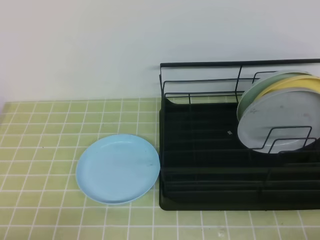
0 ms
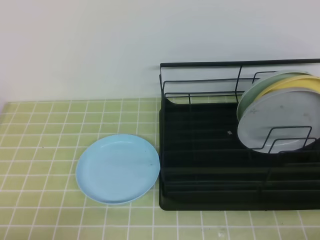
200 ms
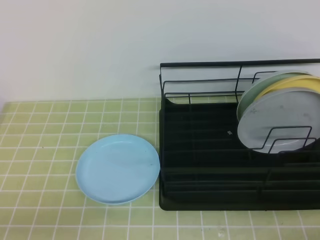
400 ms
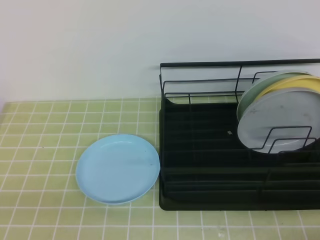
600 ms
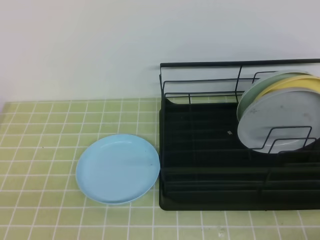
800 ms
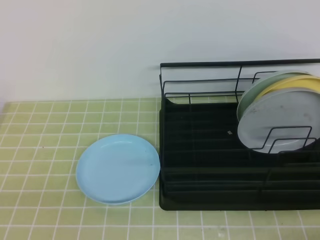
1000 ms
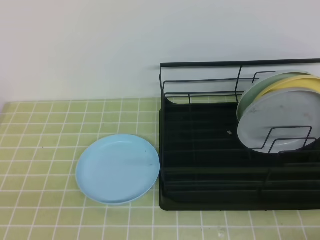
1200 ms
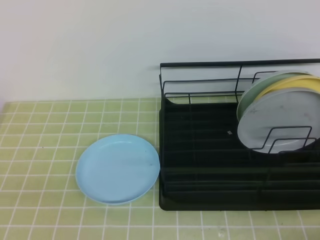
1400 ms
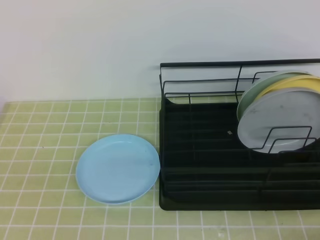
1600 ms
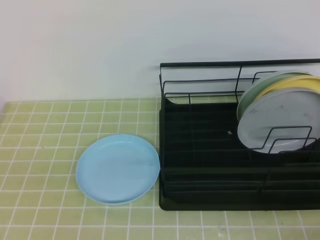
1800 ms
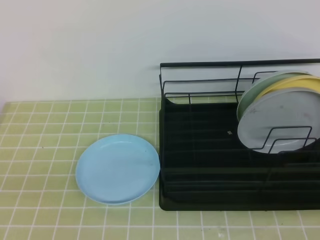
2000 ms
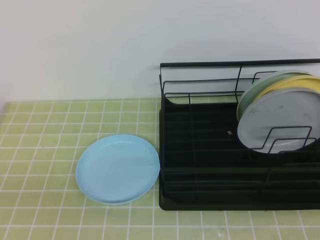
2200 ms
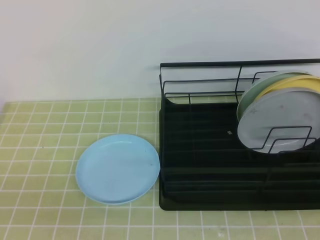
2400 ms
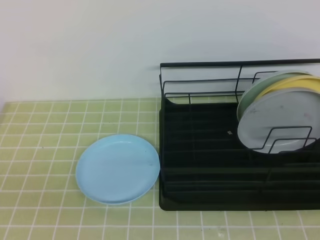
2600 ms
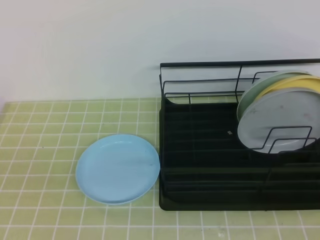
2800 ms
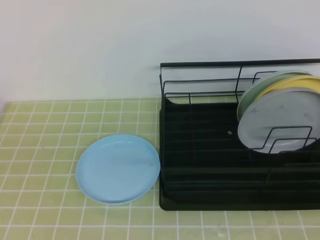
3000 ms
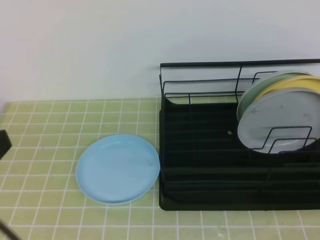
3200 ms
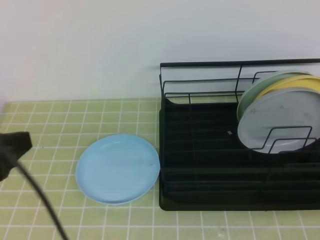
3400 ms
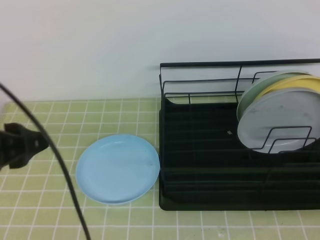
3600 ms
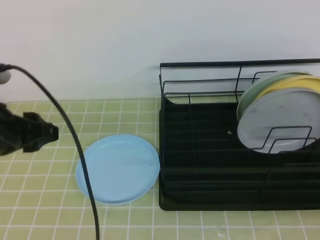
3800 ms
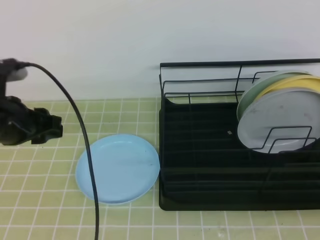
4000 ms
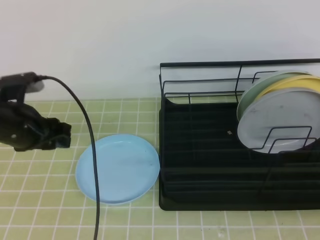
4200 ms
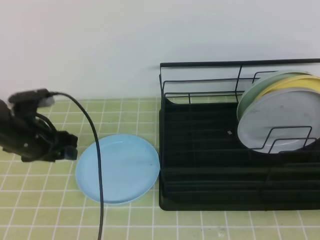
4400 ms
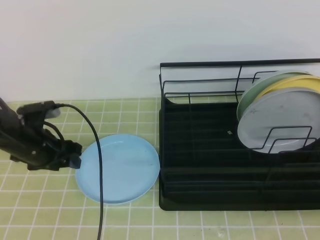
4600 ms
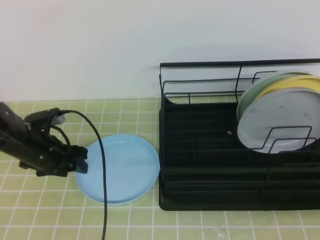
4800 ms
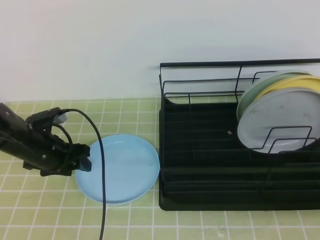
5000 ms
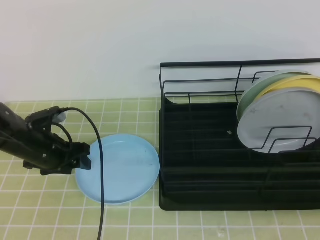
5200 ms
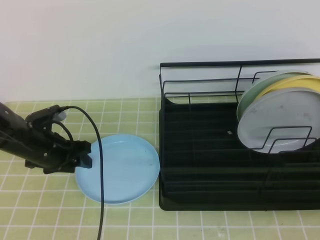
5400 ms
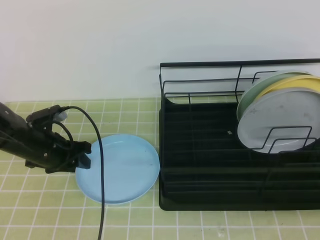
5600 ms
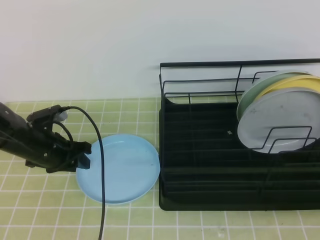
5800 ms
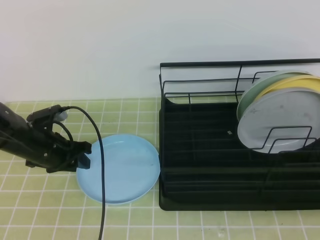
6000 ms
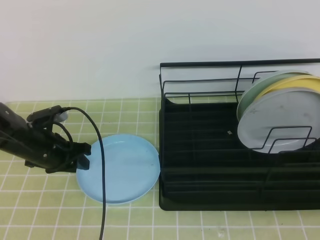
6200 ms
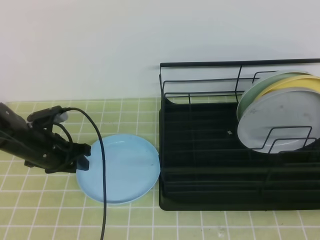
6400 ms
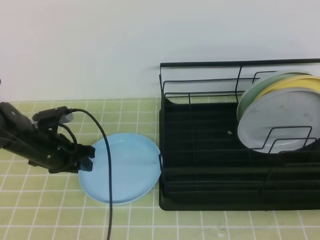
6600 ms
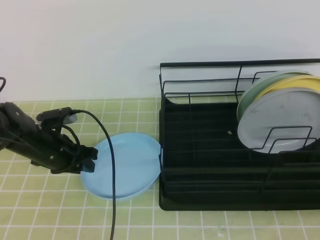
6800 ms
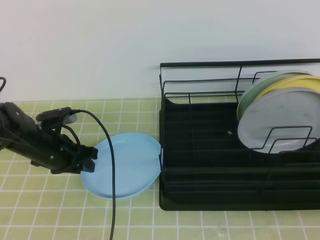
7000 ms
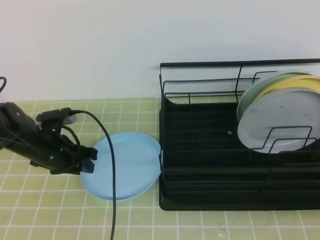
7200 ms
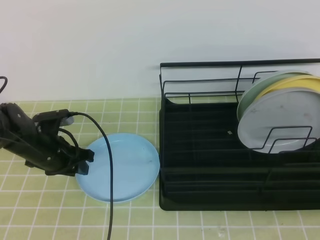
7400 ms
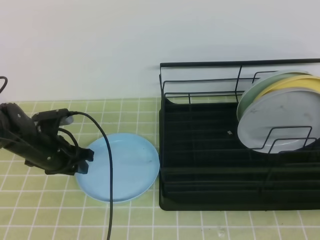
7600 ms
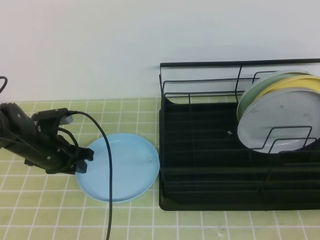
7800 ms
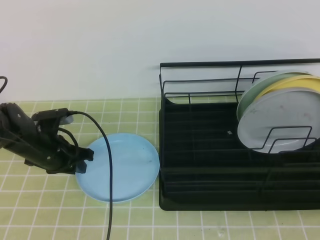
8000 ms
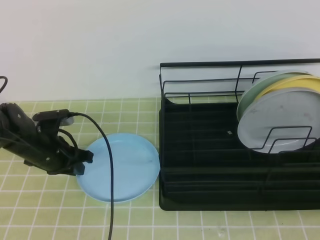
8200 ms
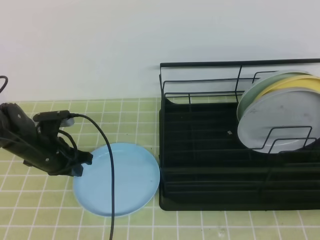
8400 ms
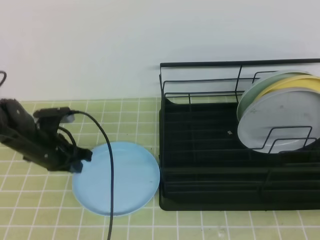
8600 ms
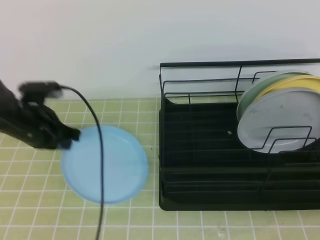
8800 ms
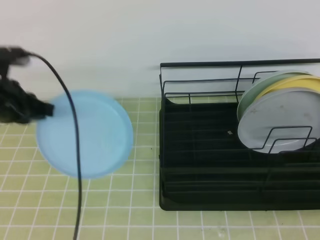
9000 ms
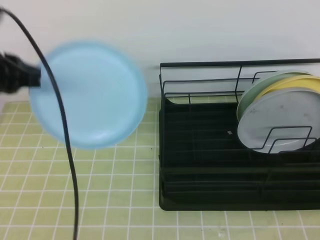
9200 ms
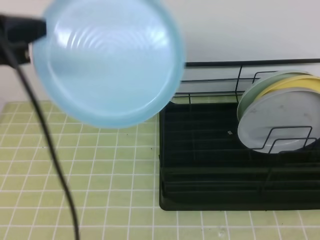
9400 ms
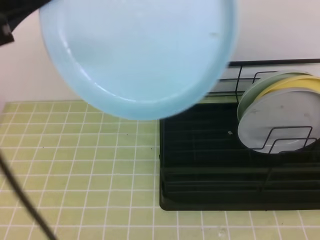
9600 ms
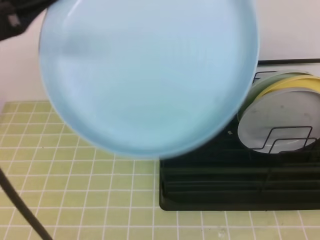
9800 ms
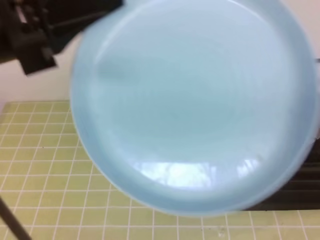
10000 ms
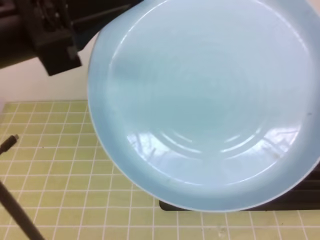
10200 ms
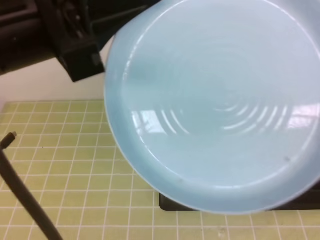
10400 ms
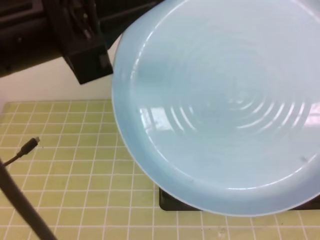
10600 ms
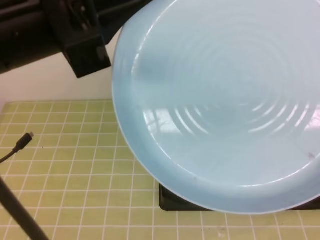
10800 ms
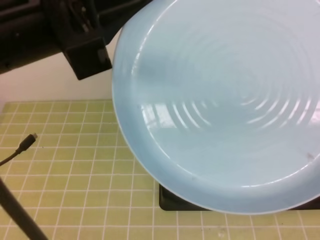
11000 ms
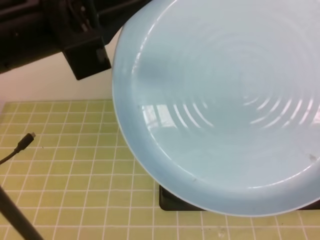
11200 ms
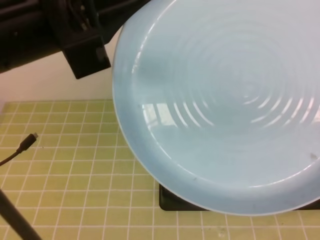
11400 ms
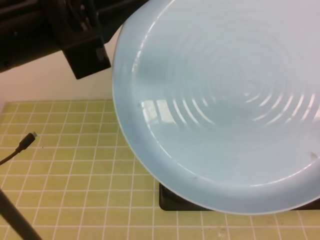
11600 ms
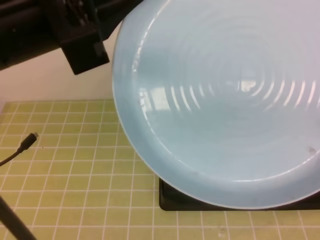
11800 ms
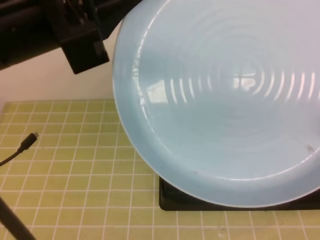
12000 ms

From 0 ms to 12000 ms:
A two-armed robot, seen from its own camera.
Step, from 0 ms to 7000 ms: Left grab the blue plate.
Step, from 7200 ms to 10600 ms: Right receive the plate.
From 3000 ms to 4400 ms: The left gripper travels forward and downward by roughly 30 cm, and opens up.
From 4400 ms to 6000 ms: The left gripper travels downward by about 5 cm, and closes up.
From 6000 ms to 7600 ms: The grippers move only a little.
From 7600 ms to 9000 ms: The left gripper goes approximately 15 cm upward, and closes up.
From 9000 ms to 10400 ms: The left gripper goes approximately 25 cm upward, backward and to the right. The right gripper is displaced upward by approximately 15 cm, and opens.
From 10400 ms to 12000 ms: The right gripper moves some 5 cm.

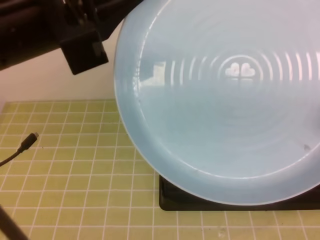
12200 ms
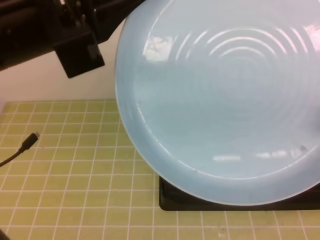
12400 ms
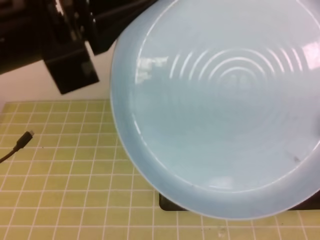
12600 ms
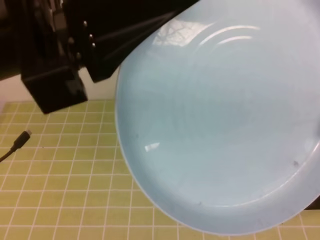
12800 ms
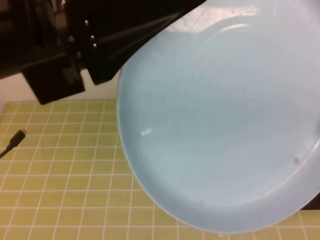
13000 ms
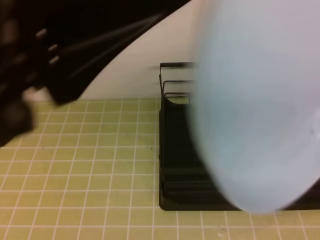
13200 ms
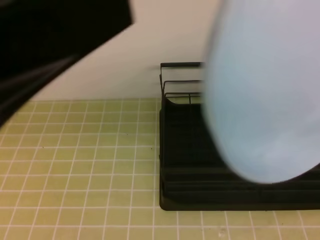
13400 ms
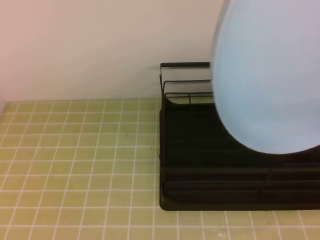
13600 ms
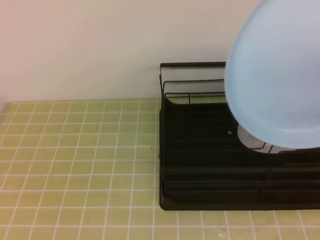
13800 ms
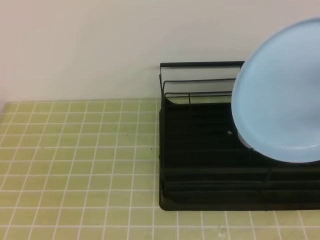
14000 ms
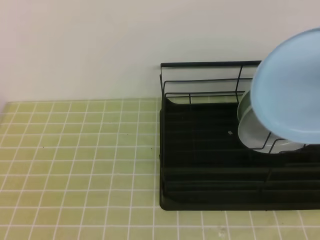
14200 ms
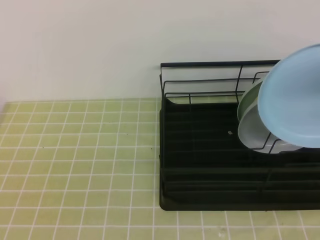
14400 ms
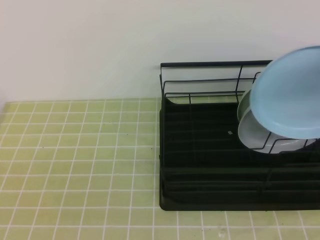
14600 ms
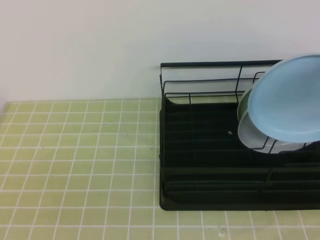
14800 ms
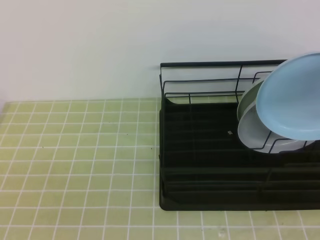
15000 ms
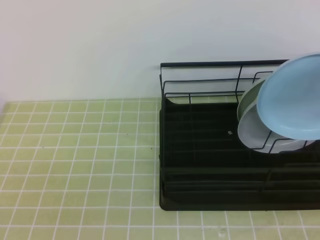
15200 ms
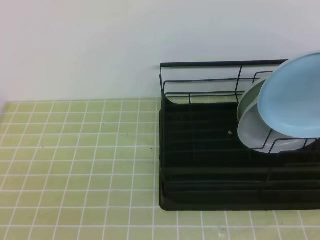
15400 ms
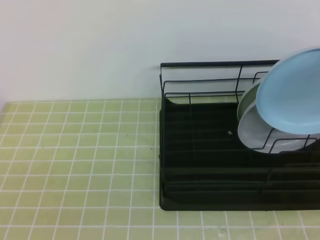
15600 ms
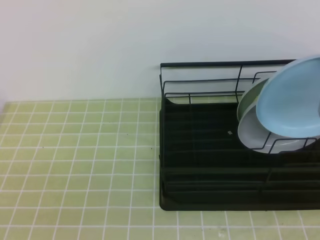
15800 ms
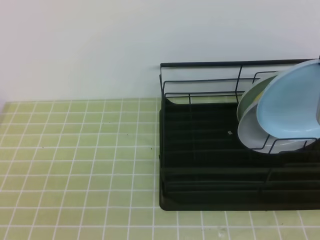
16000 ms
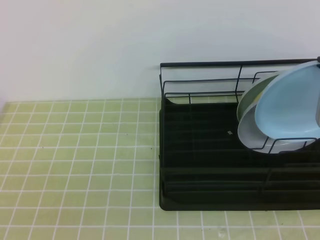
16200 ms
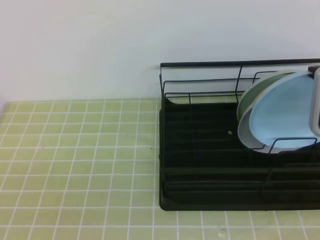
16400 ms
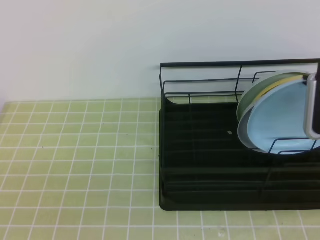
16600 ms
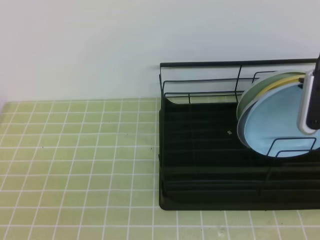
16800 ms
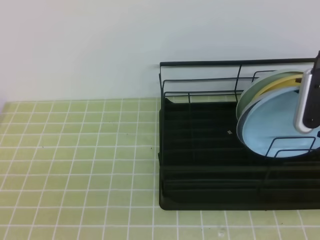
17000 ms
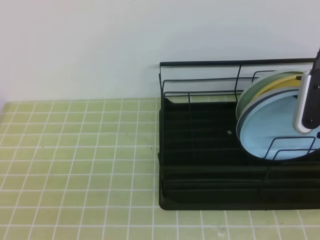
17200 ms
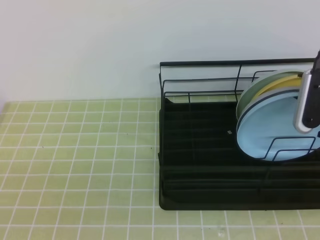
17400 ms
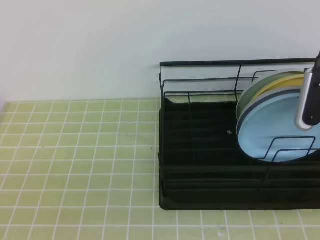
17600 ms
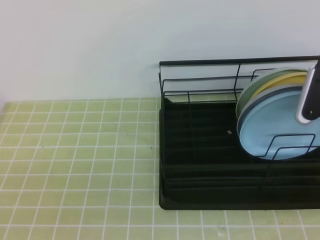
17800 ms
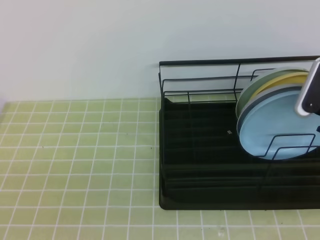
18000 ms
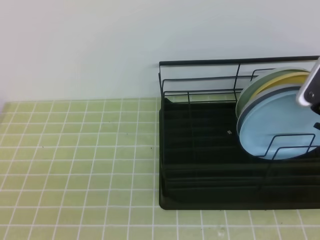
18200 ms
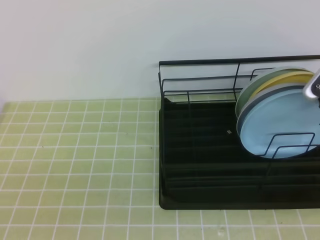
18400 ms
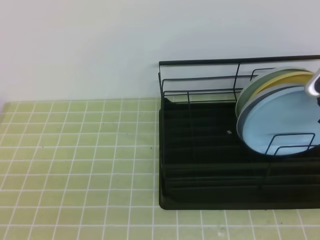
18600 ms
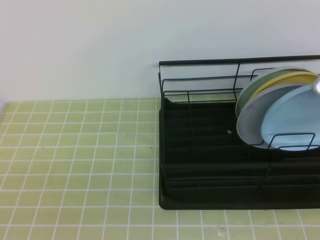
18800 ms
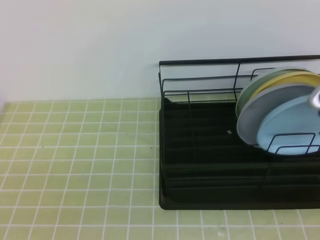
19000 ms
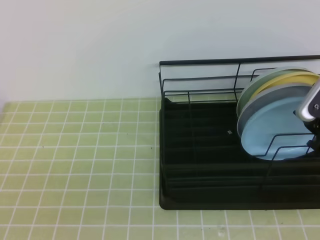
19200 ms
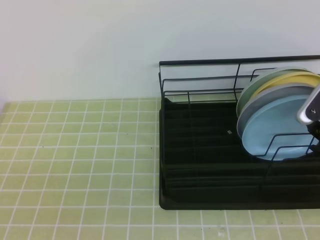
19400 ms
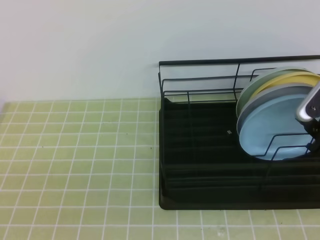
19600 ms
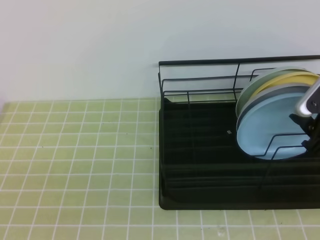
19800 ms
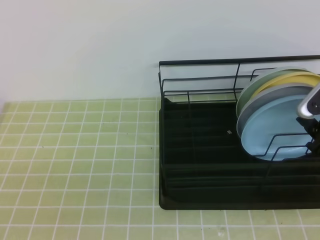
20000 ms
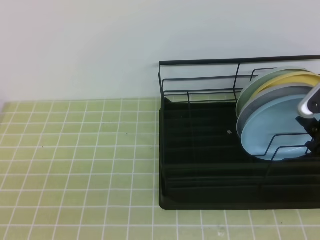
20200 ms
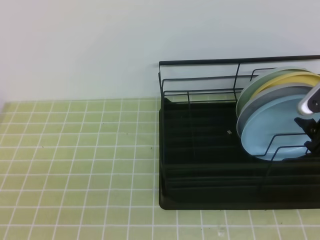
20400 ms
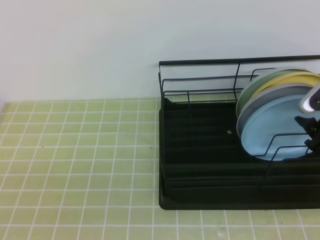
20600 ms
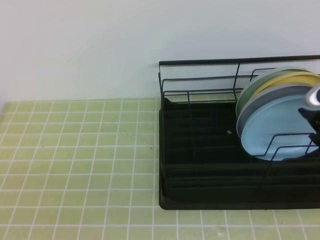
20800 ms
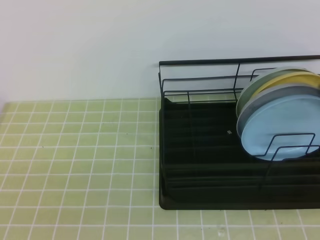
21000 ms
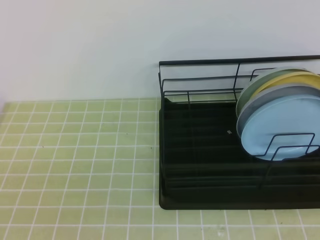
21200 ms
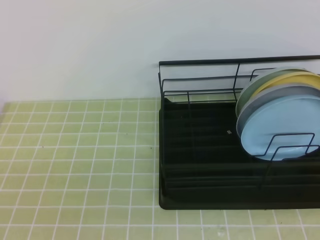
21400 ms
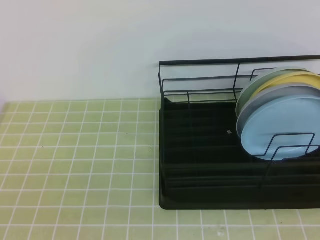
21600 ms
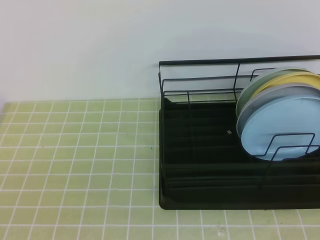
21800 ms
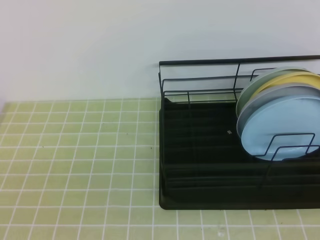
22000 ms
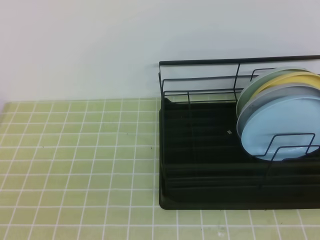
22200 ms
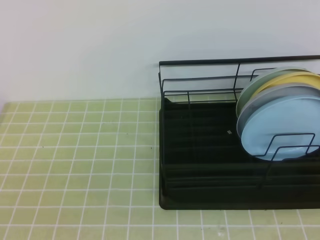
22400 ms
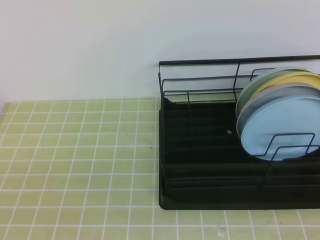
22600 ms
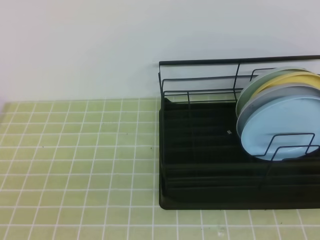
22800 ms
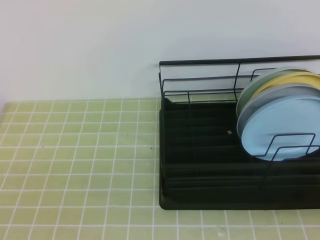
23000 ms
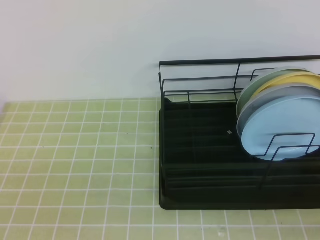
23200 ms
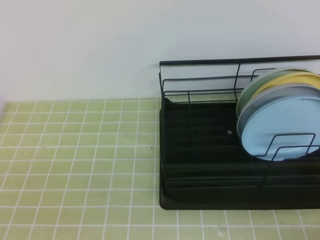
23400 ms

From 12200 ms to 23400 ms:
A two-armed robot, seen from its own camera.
Step, from 12200 ms to 16600 ms: Right place it at the front of the shelf.
From 12200 ms to 13800 ms: The right gripper moves roughly 5 cm, and closes up. Meanwhile the left gripper goes roughly 15 cm backward and to the left, and opens, then closes again.
From 13800 ms to 15400 ms: The right gripper heads forward and downward, covering about 15 cm, while the left gripper moves downward, some 20 cm.
From 15400 ms to 17000 ms: The right gripper shifts about 5 cm downward.
From 17000 ms to 18600 ms: The right gripper opens up.
From 18600 ms to 20200 ms: The grippers move only a little.
From 20200 ms to 21800 ms: The right gripper moves backward and upward, some 25 cm, and closes its fingers.
